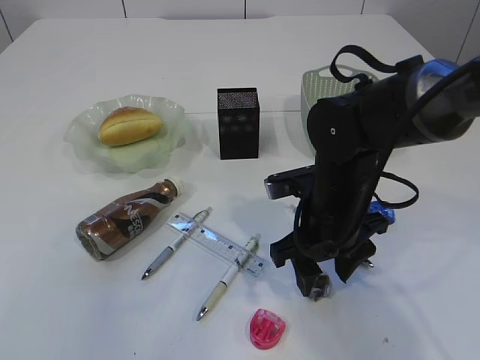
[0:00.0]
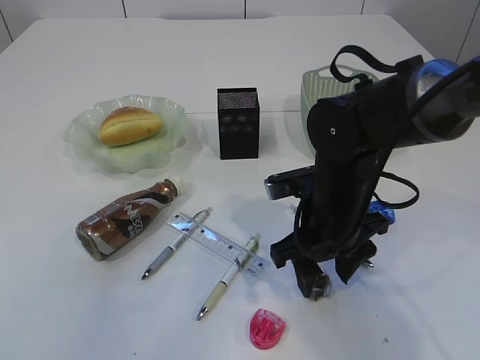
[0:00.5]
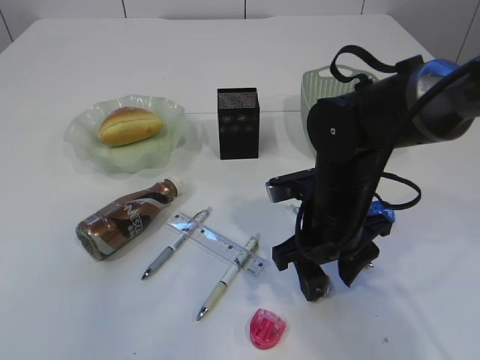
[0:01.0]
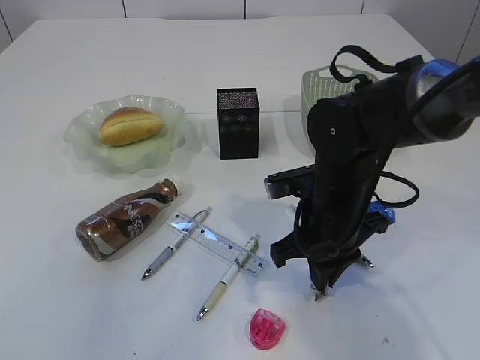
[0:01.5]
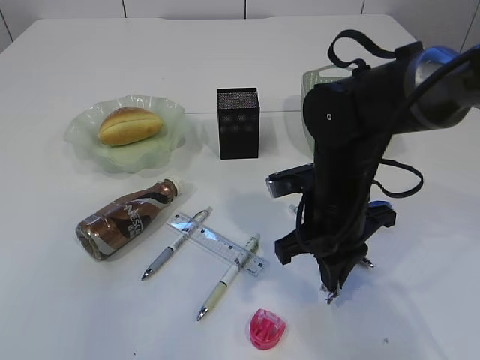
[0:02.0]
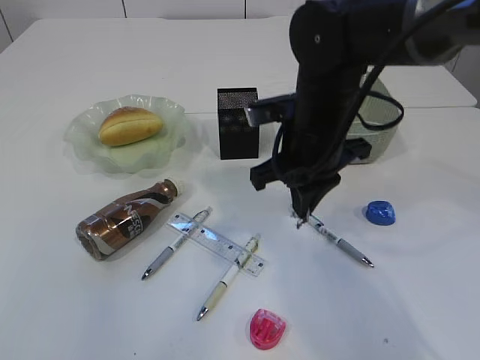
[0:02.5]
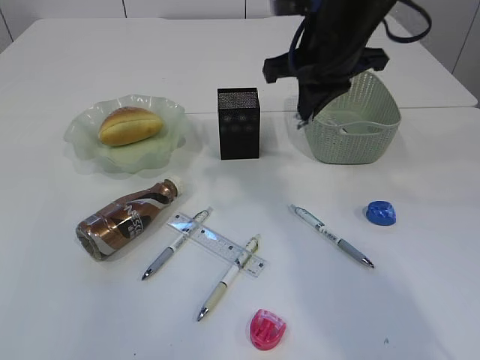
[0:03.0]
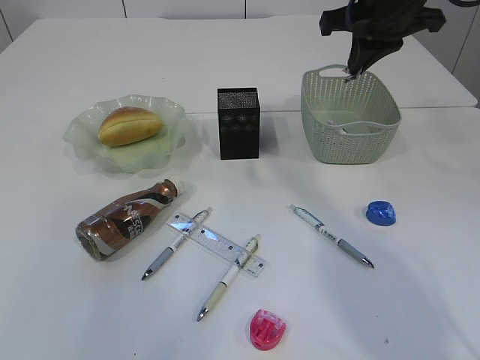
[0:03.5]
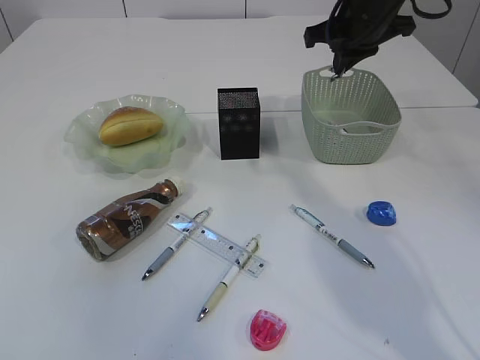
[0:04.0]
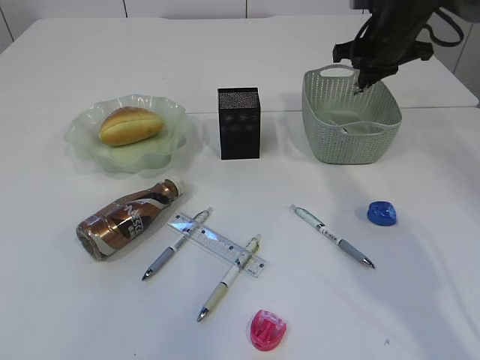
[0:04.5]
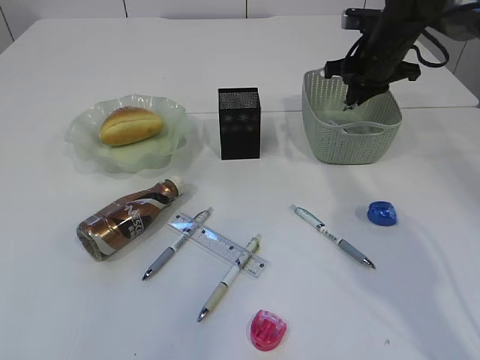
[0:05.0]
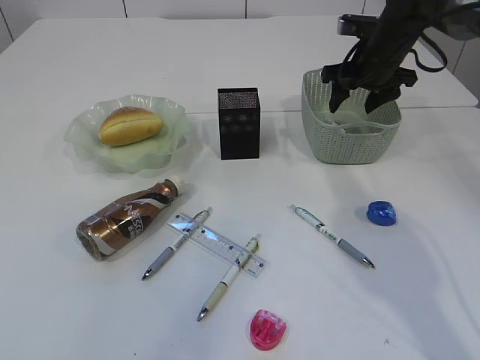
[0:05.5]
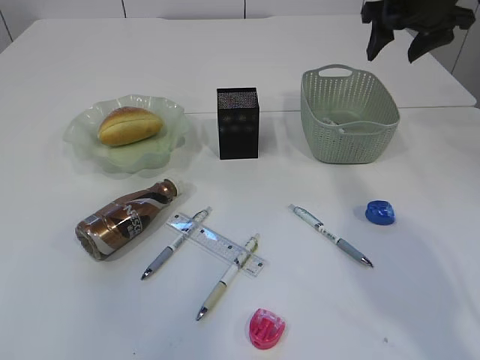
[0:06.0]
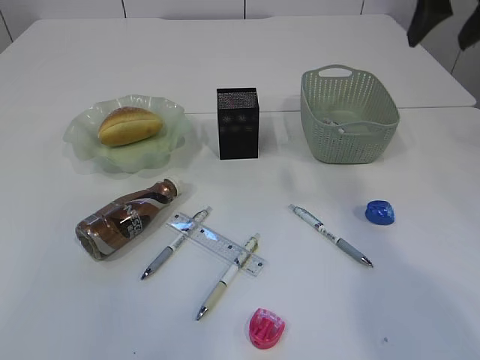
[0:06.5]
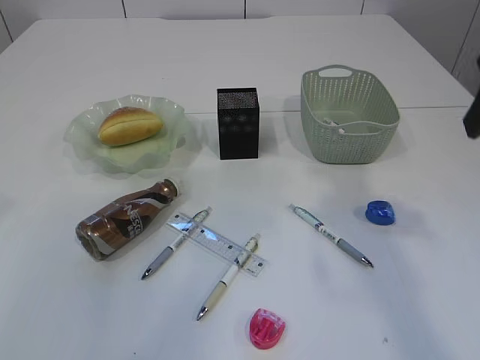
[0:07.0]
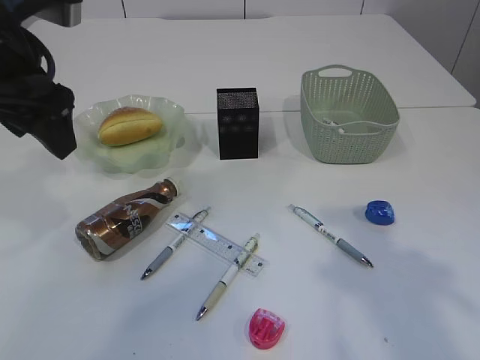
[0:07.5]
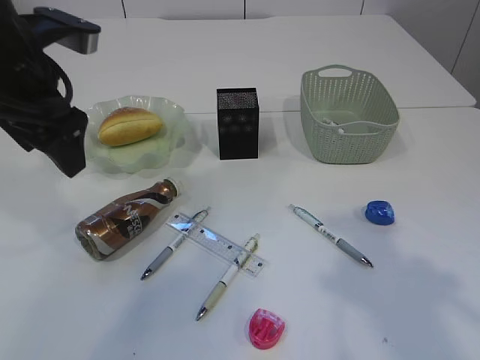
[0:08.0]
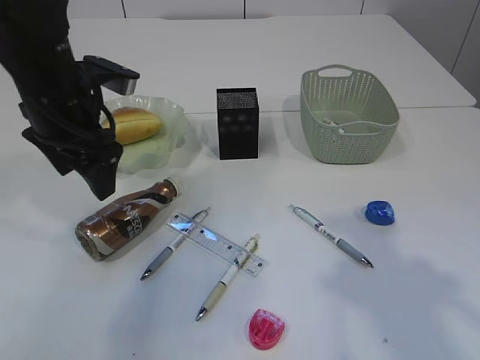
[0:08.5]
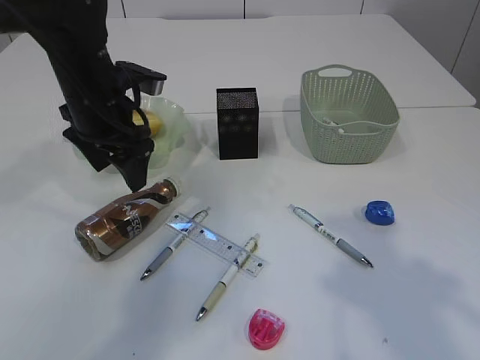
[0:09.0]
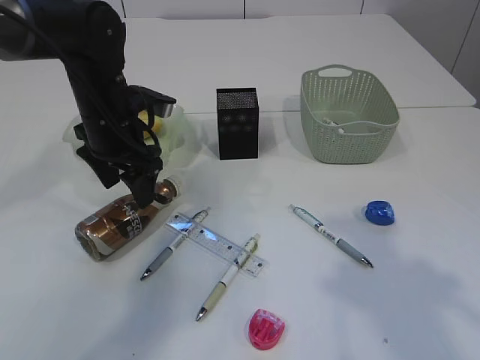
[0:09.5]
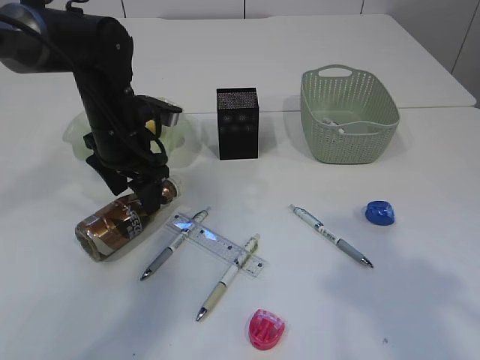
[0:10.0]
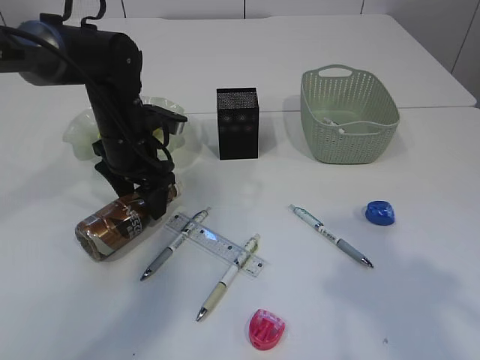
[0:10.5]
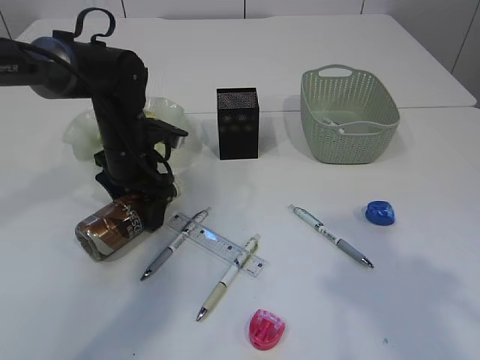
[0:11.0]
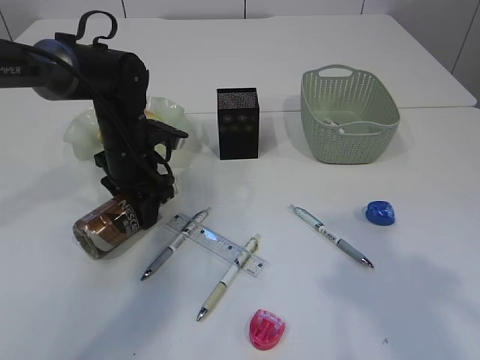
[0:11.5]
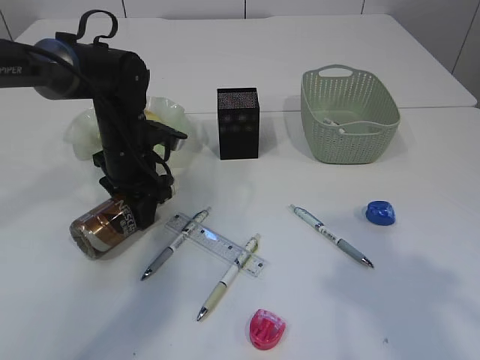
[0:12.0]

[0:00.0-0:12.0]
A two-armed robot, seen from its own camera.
Step, 0:00.0 to 0:02.5: Pick up the waste paper.
Step, 0:03.0 to 0:05.5: Place the waste paper in the basket.
0:00.0 to 0:02.0: The right gripper closes its fingers.
0:02.0 to 0:04.0: The right gripper travels forward, upward and to the right by some 25 cm.
0:04.0 to 0:06.0: The right gripper shifts roughly 5 cm to the right, travels downward and back again, approximately 10 cm each way, and opens its fingers.
0:06.0 to 0:08.0: The right gripper travels backward by approximately 35 cm. Meanwhile the left gripper goes some 20 cm downward and forward.
0:08.0 to 0:10.0: The left gripper shifts approximately 15 cm downward and forward.
0:10.0 to 0:12.0: The left gripper closes up.

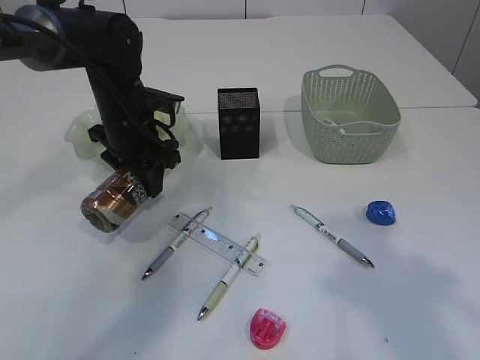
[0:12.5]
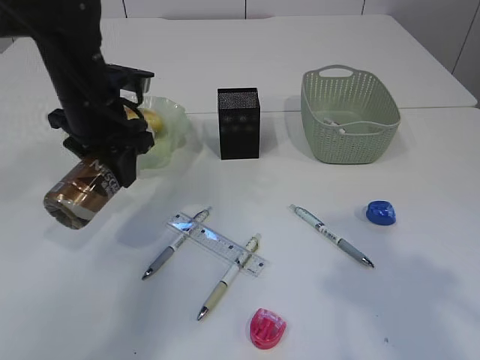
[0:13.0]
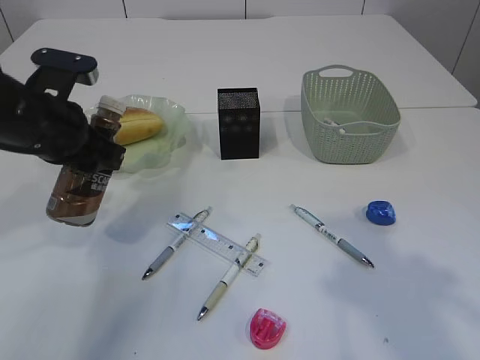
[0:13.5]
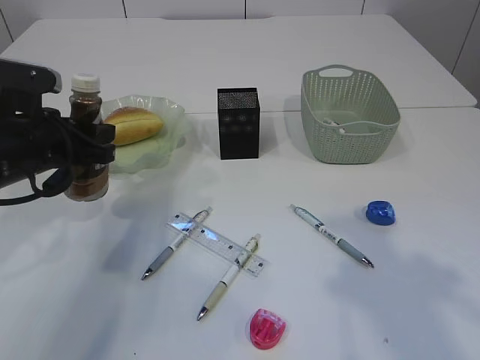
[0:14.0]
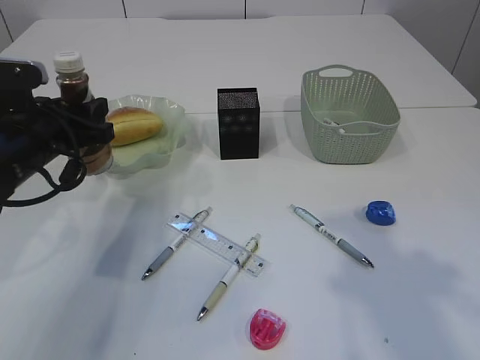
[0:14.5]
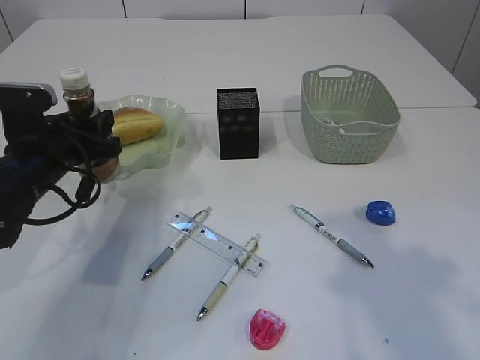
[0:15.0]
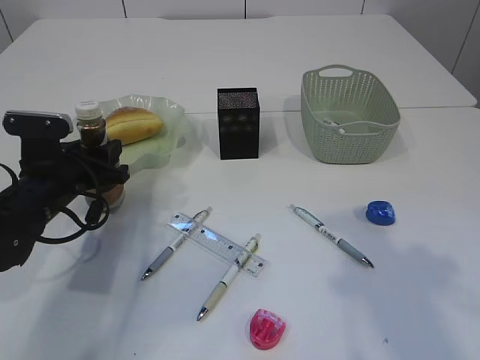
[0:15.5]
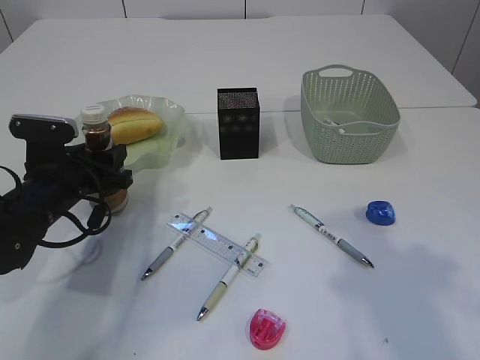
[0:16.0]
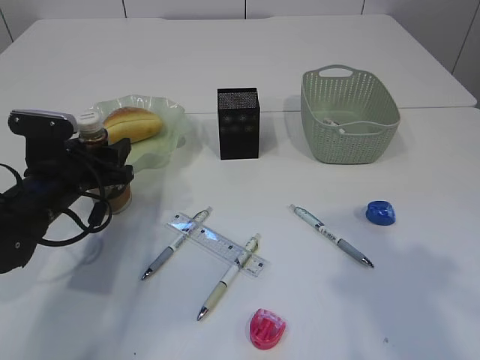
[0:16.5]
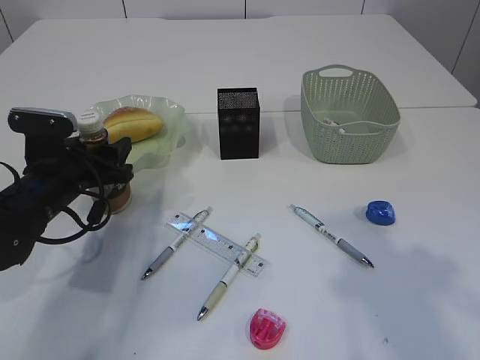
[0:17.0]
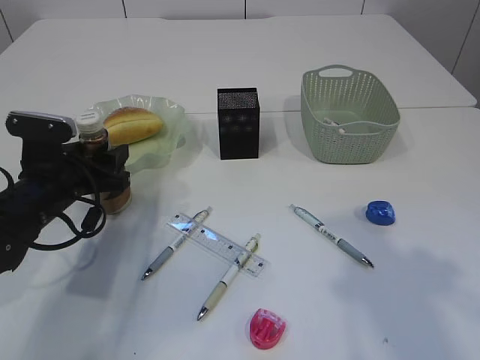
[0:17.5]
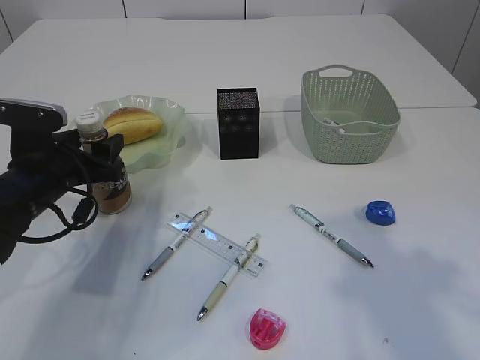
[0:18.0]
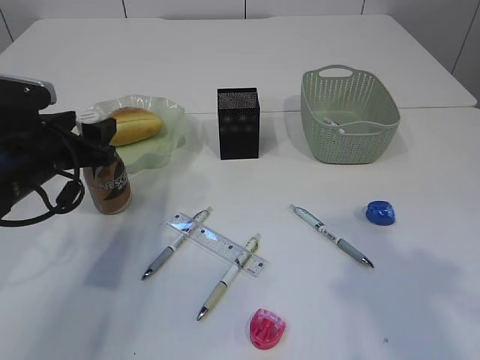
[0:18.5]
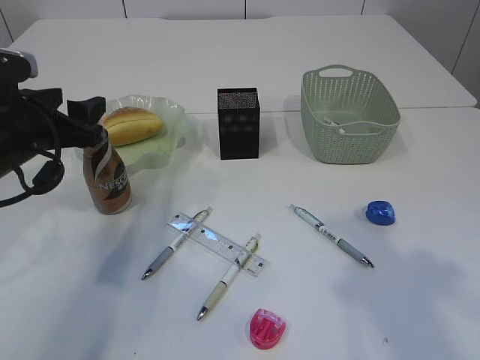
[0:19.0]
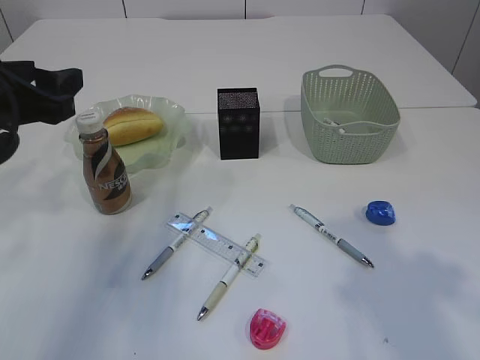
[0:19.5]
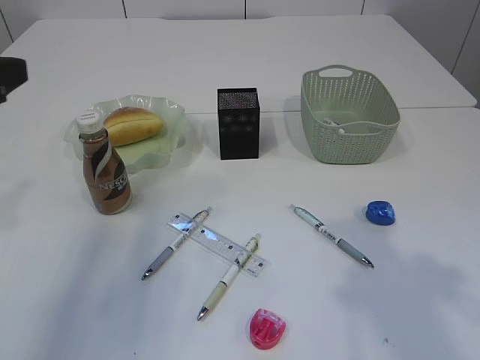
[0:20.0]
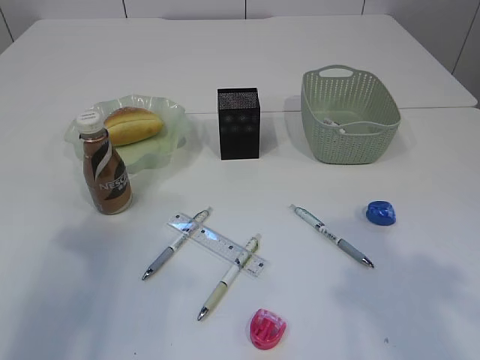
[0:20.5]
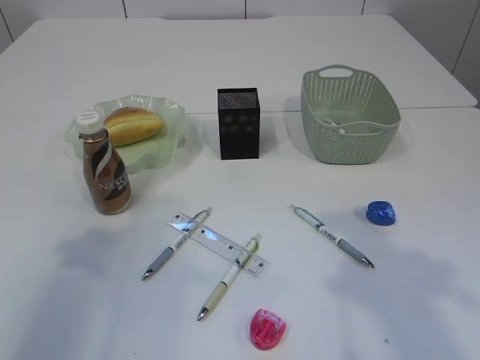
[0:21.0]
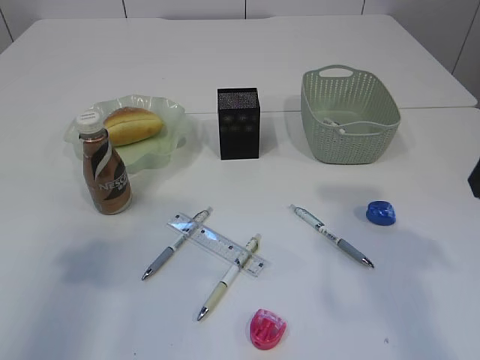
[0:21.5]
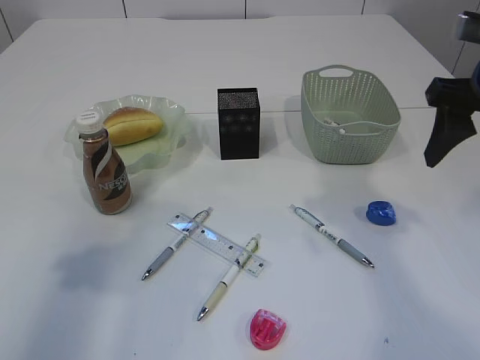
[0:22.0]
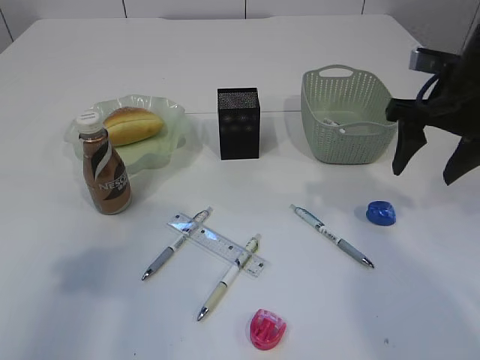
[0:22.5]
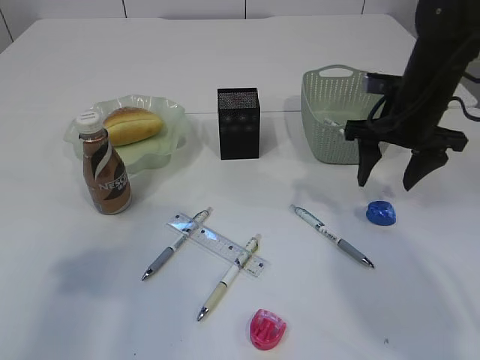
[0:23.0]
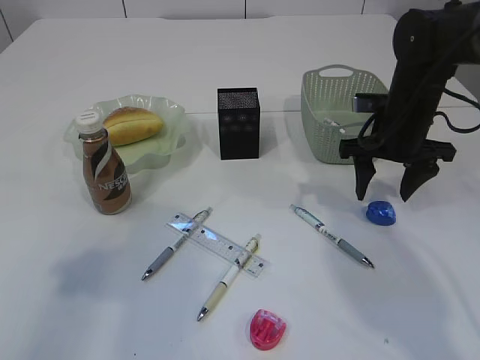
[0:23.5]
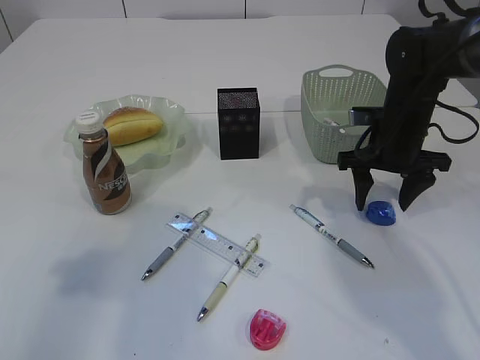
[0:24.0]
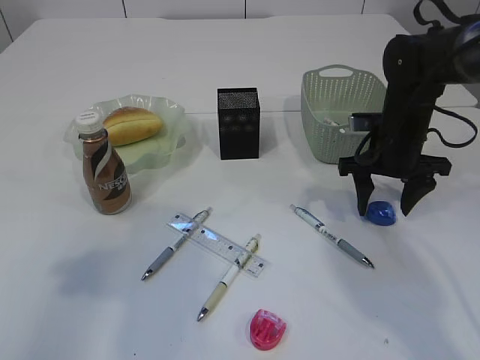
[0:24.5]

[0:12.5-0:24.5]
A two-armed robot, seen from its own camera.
Step, 0:13.5 to 0:19.5: Place the bottle.
0:12.5 to 0:14.5: The left gripper heads backward and to the left, covering approximately 10 cm.
0:14.5 to 0:16.5: The left gripper is displaced downward by approximately 5 cm.
0:16.5 to 0:18.5: The left gripper travels upward by about 5 cm.
0:18.5 to 0:20.5: The left gripper heads backward, upward and to the left, covering approximately 15 cm.
0:20.5 to 0:22.5: The right gripper heads forward and downward, covering some 25 cm.
0:22.5 to 0:24.5: The right gripper moves downward and forward, roughly 10 cm.

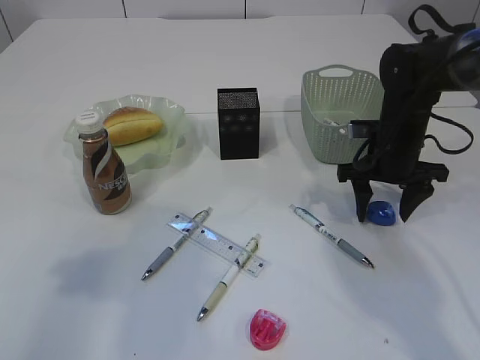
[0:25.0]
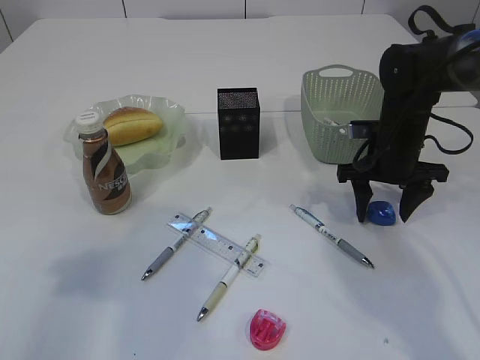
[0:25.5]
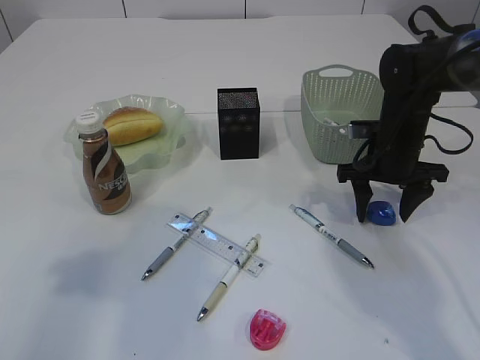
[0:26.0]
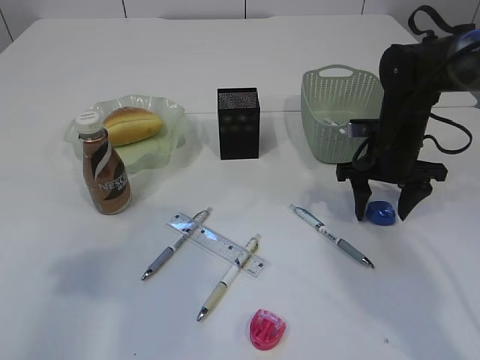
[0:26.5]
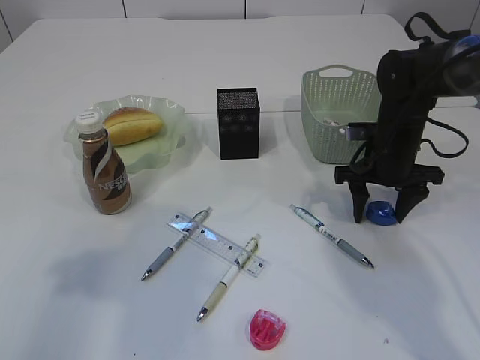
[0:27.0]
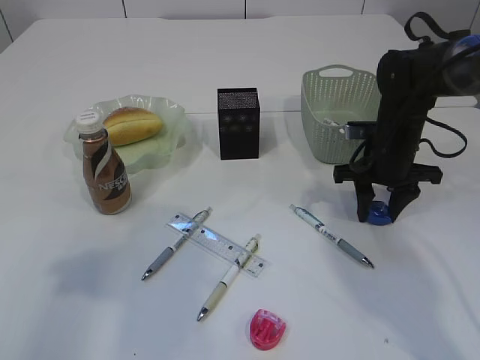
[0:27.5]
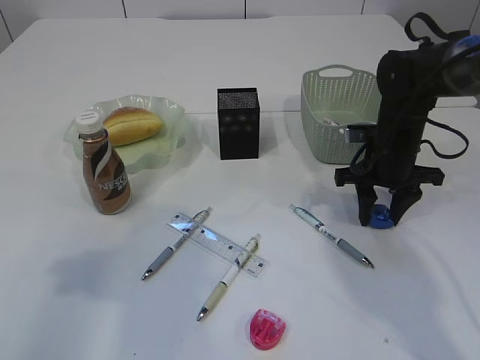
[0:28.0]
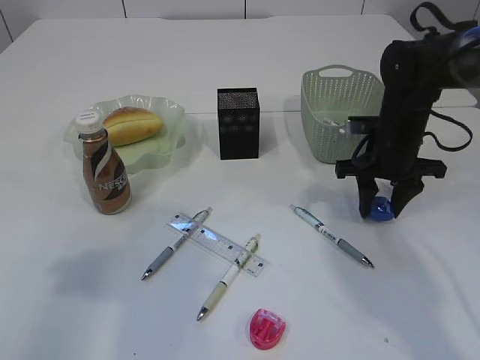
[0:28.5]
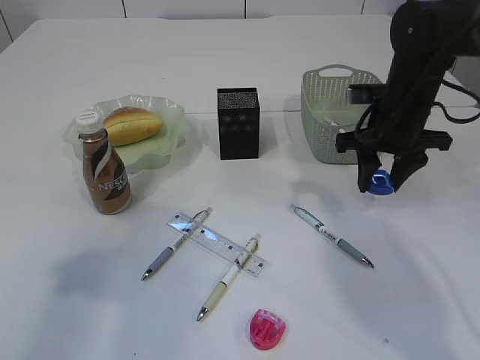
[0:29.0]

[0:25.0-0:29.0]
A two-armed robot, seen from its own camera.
0:25.0 to 0:27.0: Both grippers stay put.
0:27.0 to 0:29.0: The right gripper heads upward, covering approximately 5 cm.
